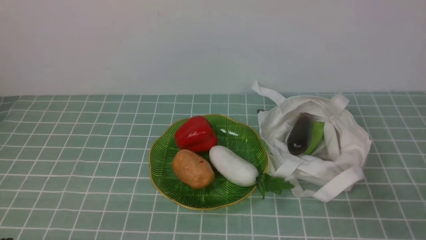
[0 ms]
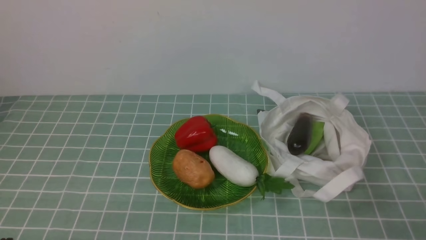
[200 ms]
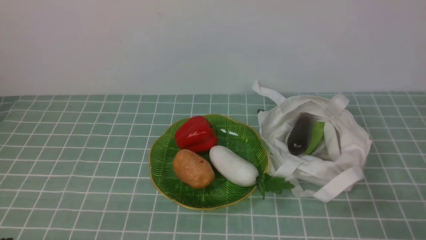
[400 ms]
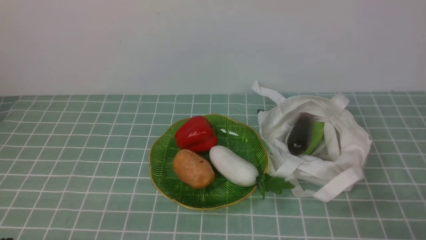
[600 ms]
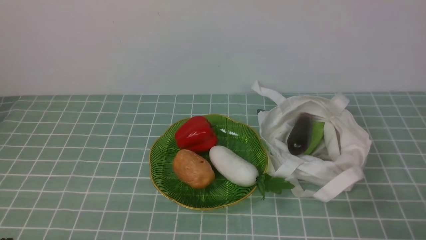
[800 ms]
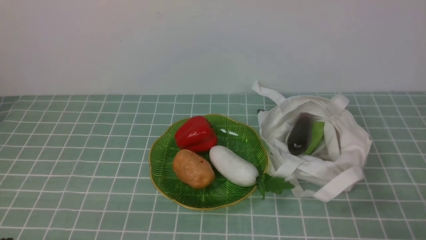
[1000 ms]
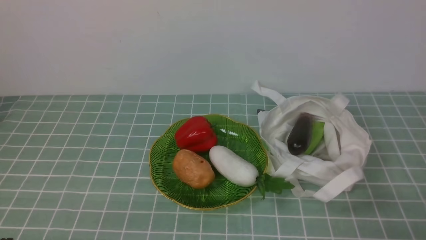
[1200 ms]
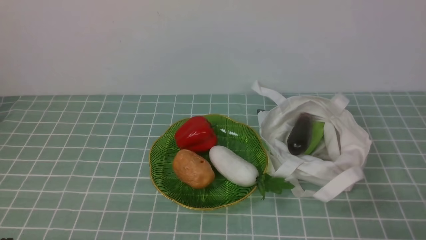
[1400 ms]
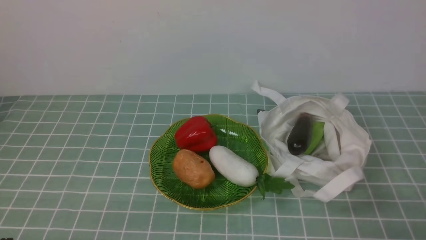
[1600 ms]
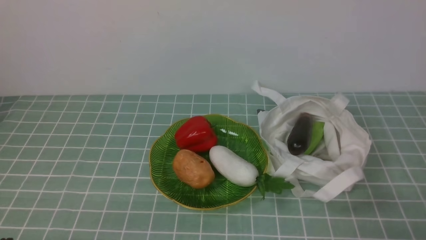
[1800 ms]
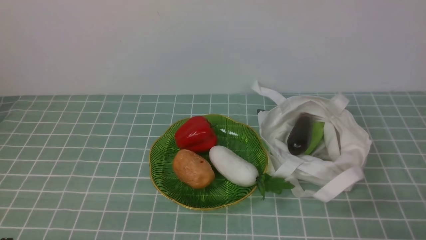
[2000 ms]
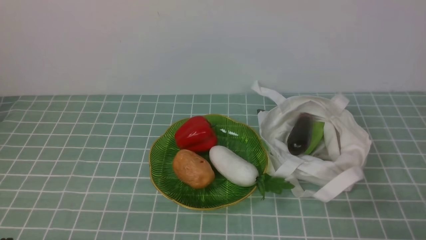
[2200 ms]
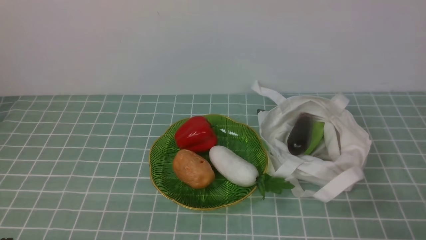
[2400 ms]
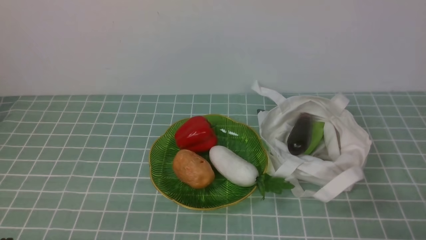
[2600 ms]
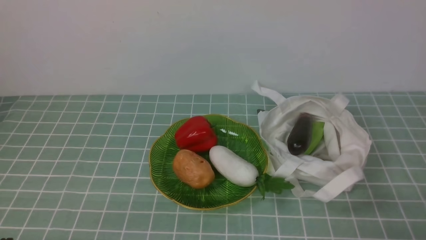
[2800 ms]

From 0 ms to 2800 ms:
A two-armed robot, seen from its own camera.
Task of the whole recording: take vegetables from cloth bag on blue coffee tablecloth place on plate.
From 1400 ms to 2800 ms: Both grippers stay about where they are.

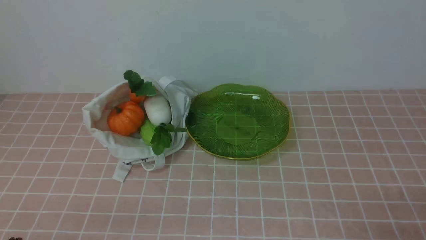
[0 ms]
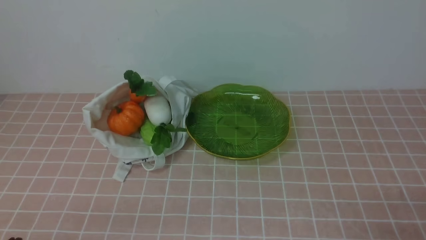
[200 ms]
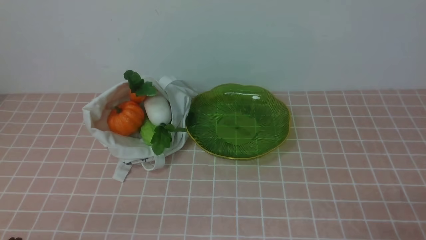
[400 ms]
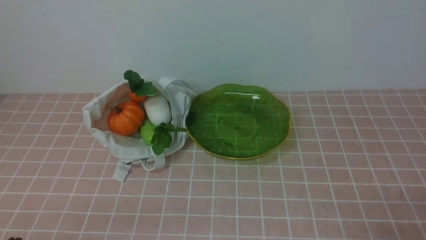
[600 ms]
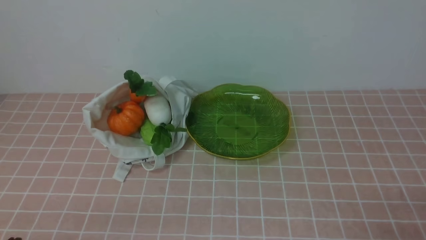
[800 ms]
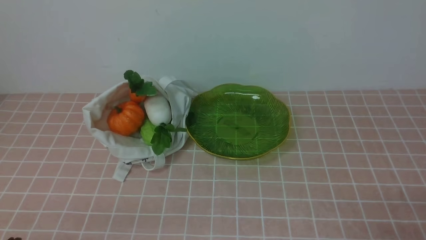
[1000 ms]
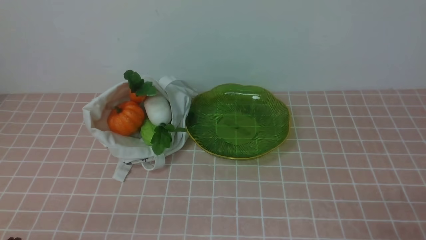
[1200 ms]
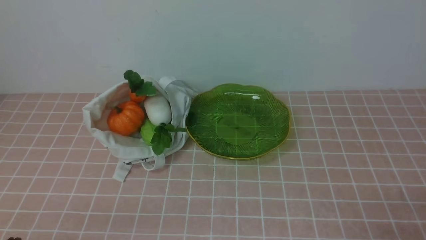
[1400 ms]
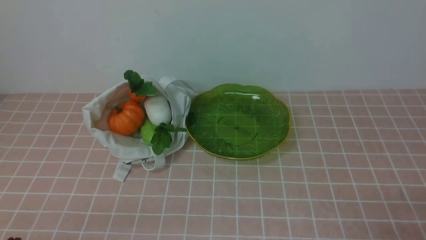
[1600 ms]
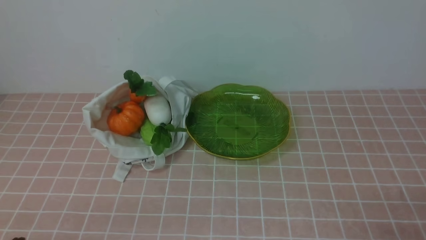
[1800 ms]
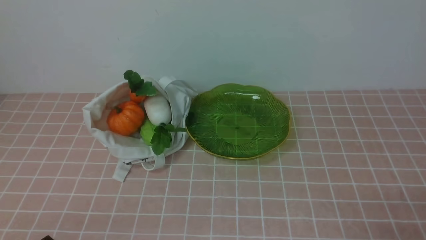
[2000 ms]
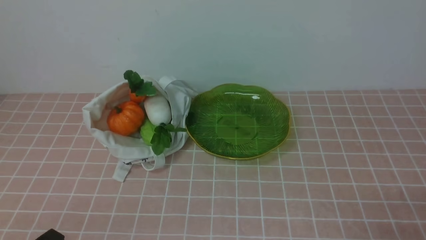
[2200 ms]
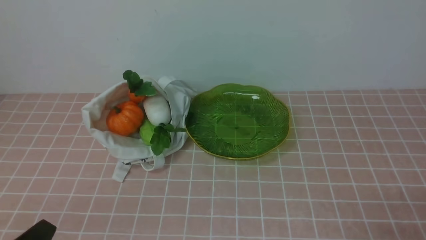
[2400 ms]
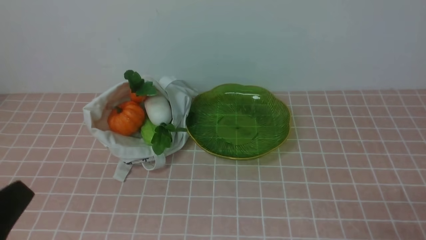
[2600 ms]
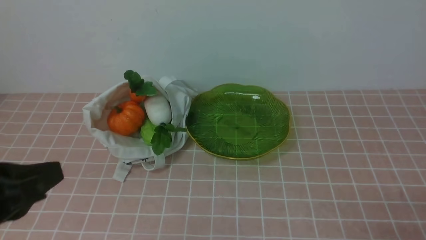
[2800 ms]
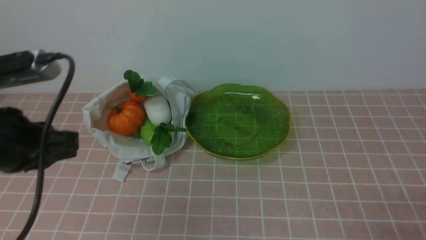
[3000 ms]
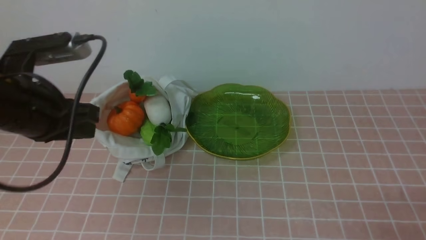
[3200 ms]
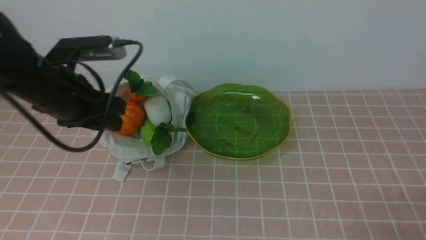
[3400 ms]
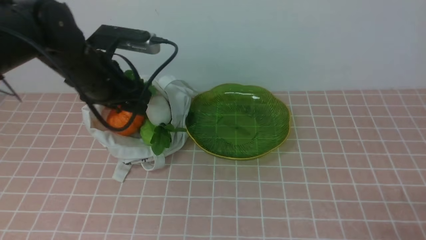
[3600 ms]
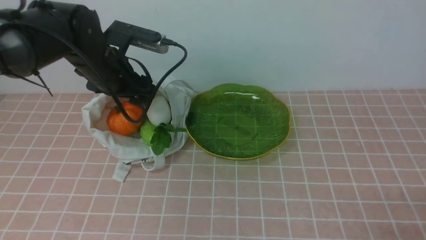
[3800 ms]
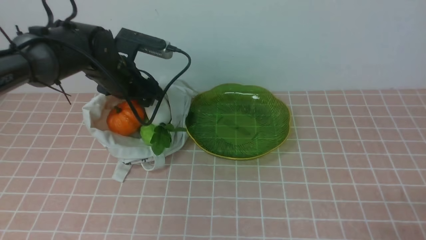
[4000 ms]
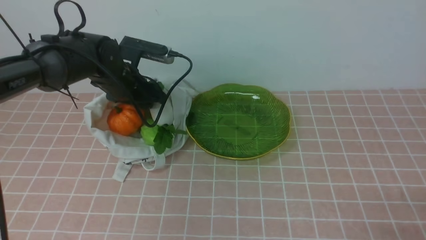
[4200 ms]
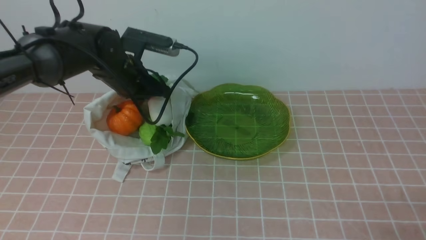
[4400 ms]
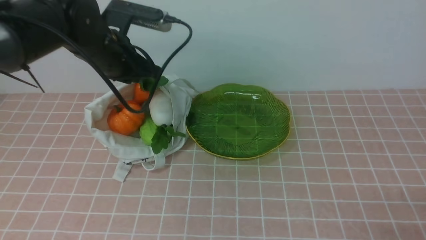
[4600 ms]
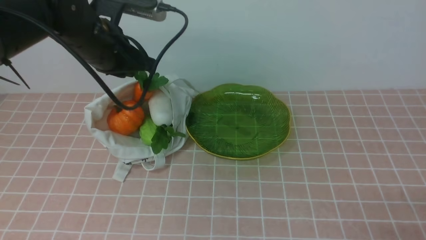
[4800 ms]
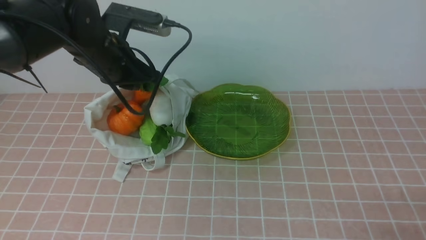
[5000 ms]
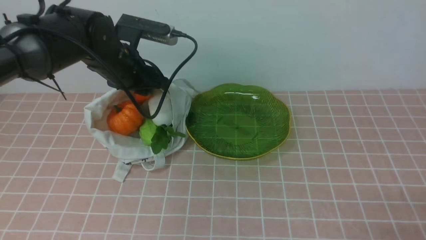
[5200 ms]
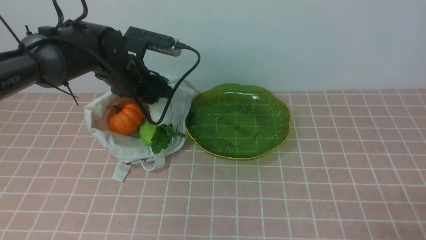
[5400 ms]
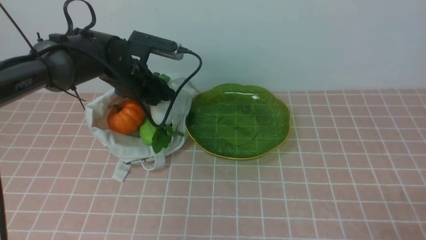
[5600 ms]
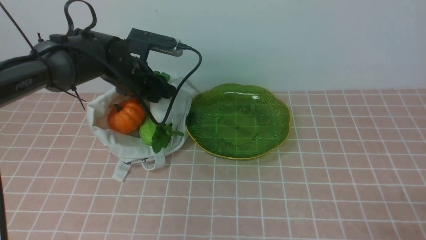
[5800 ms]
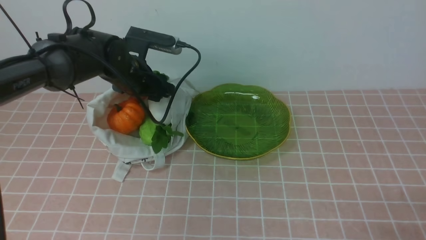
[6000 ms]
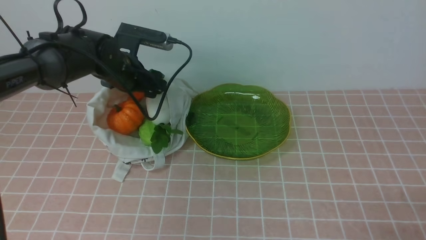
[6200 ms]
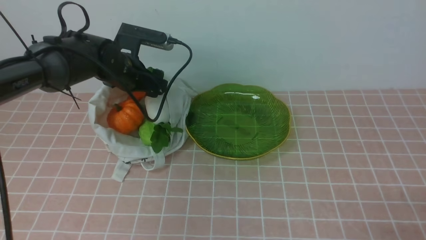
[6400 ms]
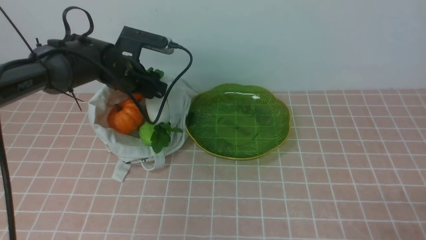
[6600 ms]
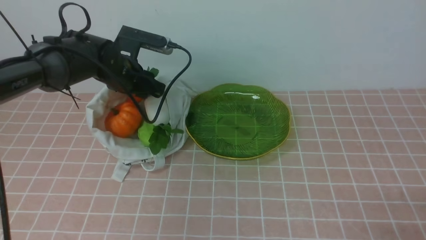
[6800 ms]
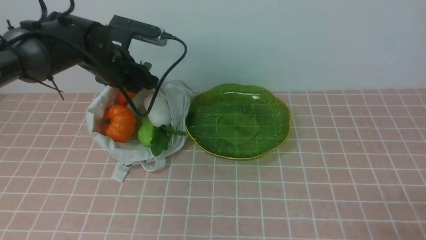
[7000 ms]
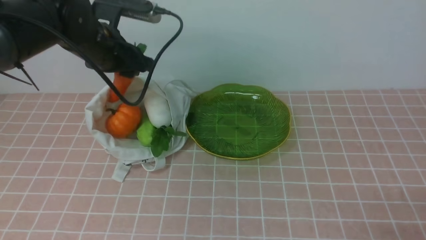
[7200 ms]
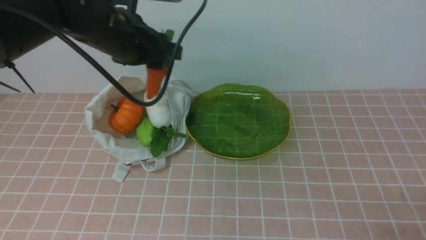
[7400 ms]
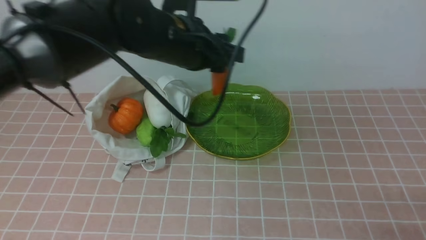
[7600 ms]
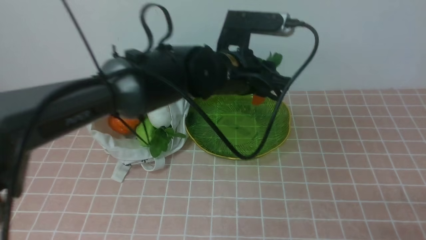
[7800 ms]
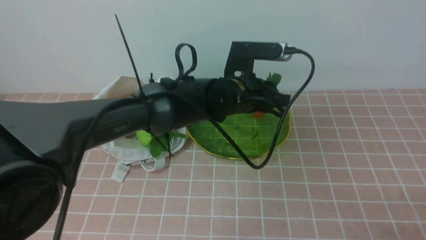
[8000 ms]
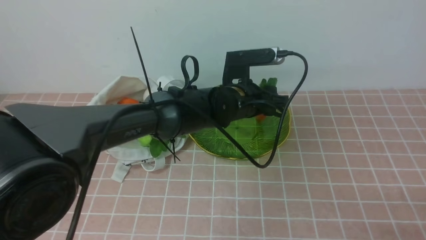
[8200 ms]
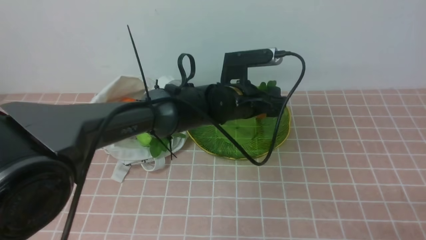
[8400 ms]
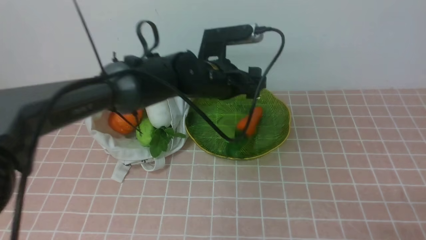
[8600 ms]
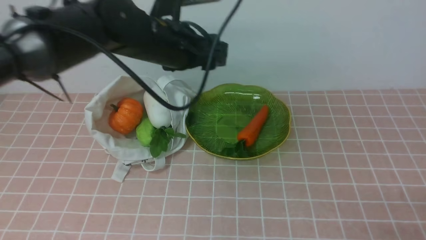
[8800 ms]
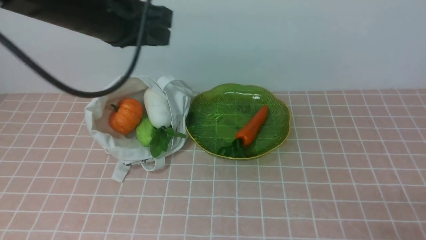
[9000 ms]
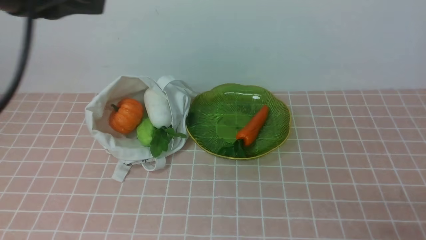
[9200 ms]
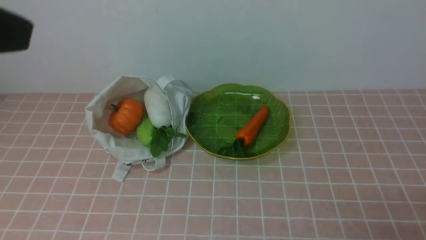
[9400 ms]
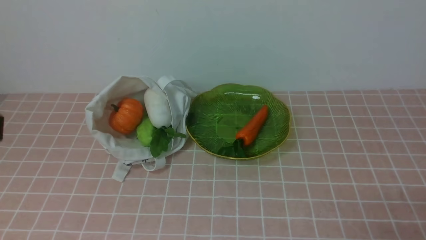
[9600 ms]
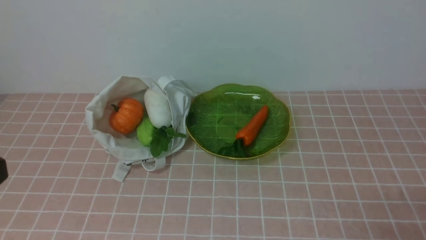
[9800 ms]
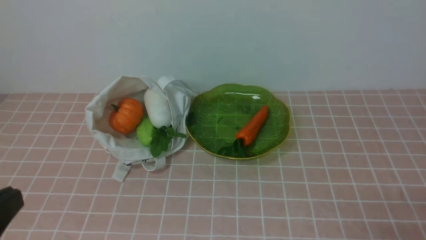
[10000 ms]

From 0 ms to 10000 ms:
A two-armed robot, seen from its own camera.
Task of the whole recording: take vegetables from bag on pink coffee tablecloth place on plate.
Step, from 0 ms to 6600 ms: Grasp the carrot with left gripper.
Step, from 6800 ms to 8600 ms: Place the carrot on the plate with left gripper.
From 0 ms to 1400 ms: Neither gripper changes place.
From 1400 ms to 2800 ms: The left gripper heads upward and forward, covering some 15 cm.
From 2800 ms to 4200 ms: The left gripper heads forward, covering about 30 cm, and opens.
From 4200 ms to 5800 ms: The left gripper goes upward and returns, roughly 5 cm each way, and closes and opens again.
From 5800 ms to 7200 ms: The left gripper is displaced upward by some 10 cm.
From 7200 ms to 8600 ms: The left gripper travels to the right by about 10 cm, and opens up.
From 8600 ms to 10000 ms: The left gripper travels backward and to the left by roughly 40 cm, and closes up.

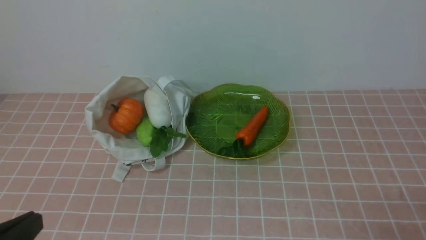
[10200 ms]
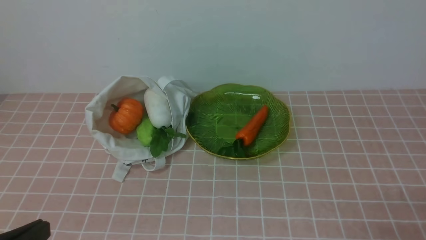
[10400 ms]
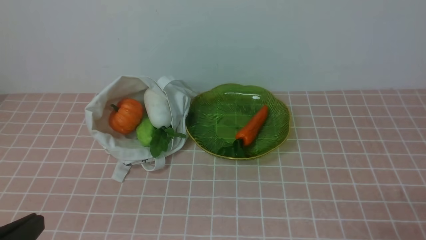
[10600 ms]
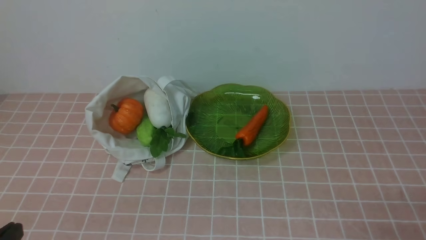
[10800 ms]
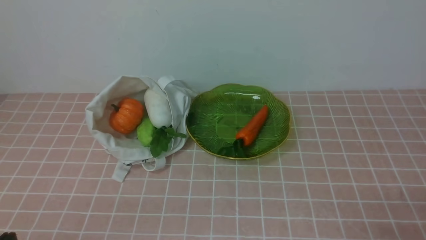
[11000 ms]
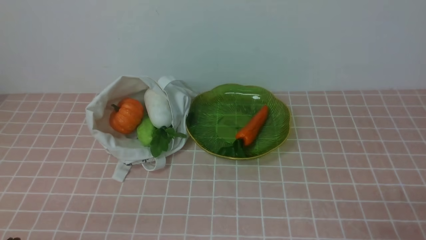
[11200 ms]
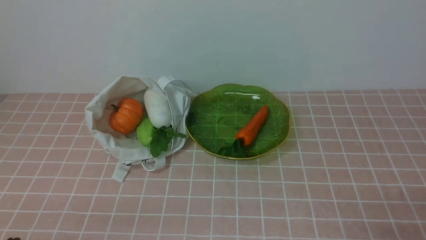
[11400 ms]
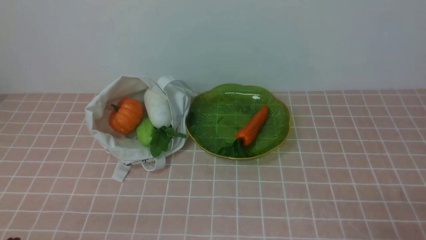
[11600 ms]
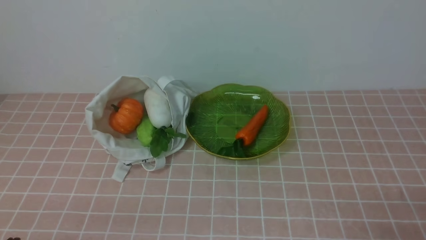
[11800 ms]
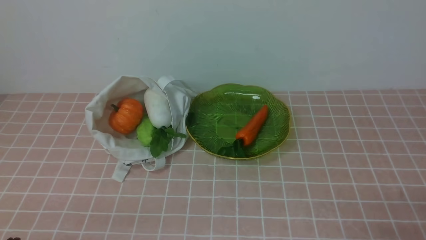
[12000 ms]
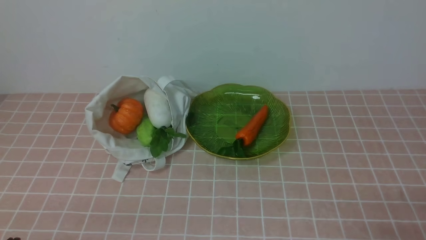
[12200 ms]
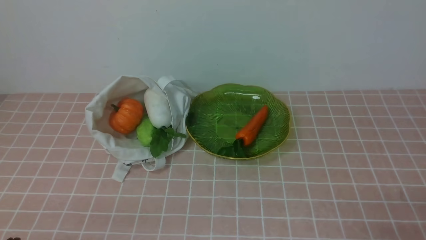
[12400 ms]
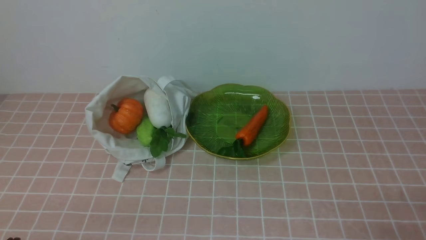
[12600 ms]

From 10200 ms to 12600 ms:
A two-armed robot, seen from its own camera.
Task of the whole recording: take vegetables from bag on pink coffee tablecloth place on plate.
From 10200 ms to 11400 ms: The left gripper heads downward, covering approximately 10 cm.
From 11400 ms to 12600 ms: Neither gripper changes place.
